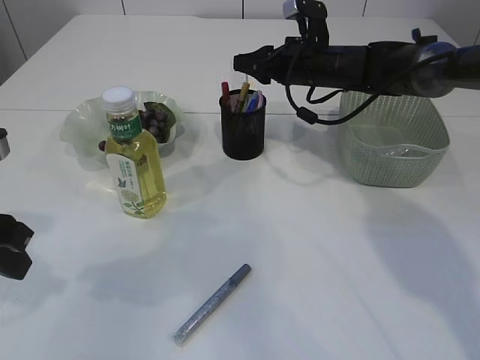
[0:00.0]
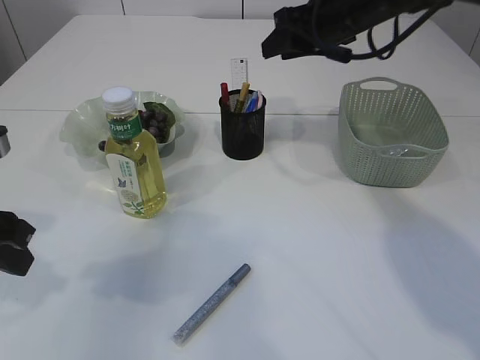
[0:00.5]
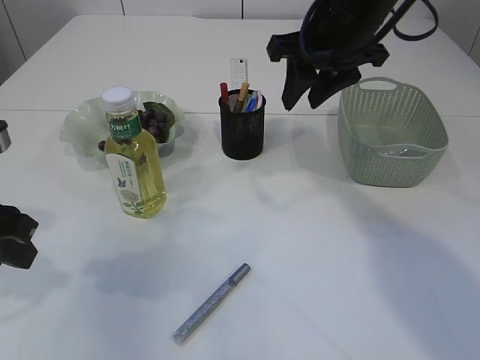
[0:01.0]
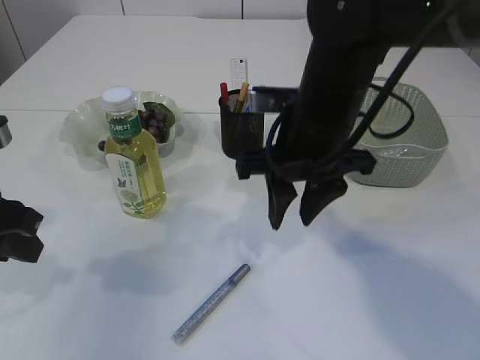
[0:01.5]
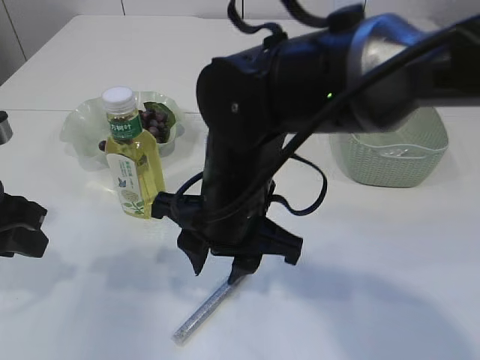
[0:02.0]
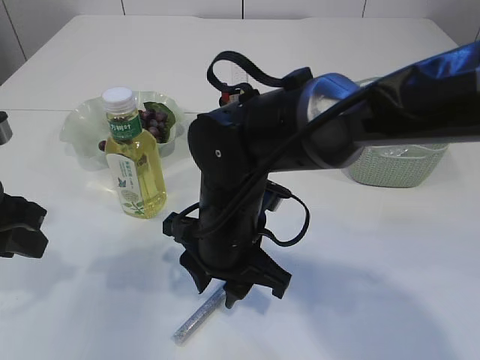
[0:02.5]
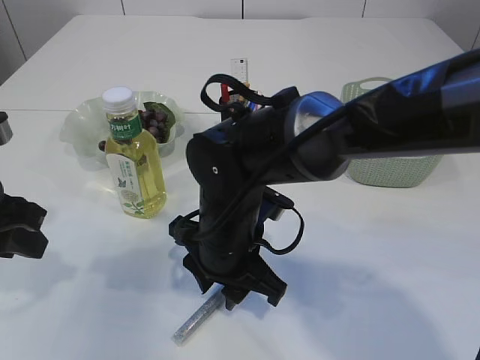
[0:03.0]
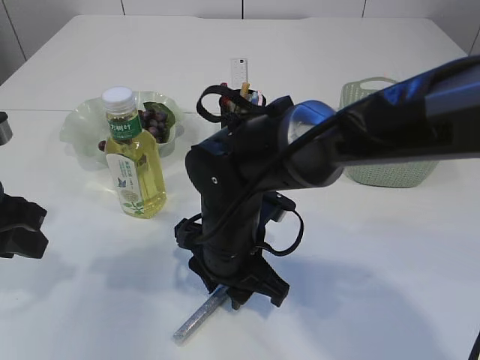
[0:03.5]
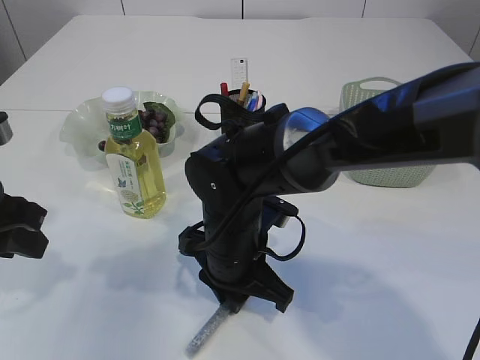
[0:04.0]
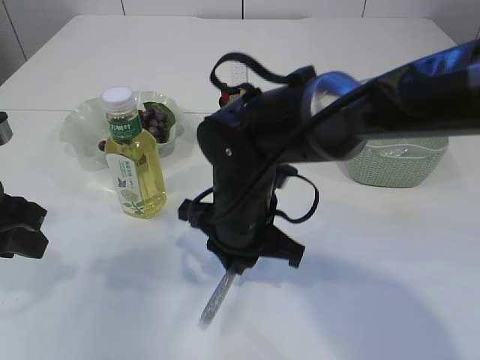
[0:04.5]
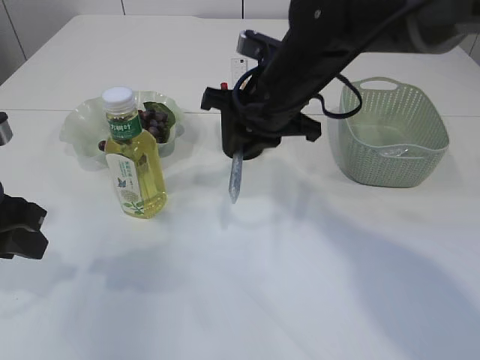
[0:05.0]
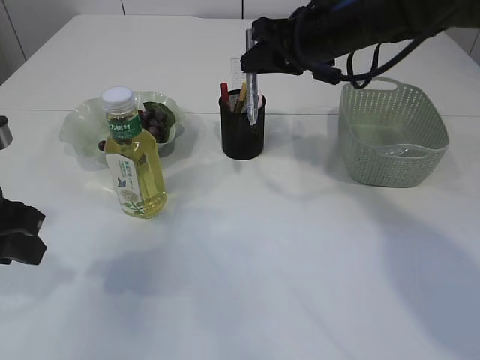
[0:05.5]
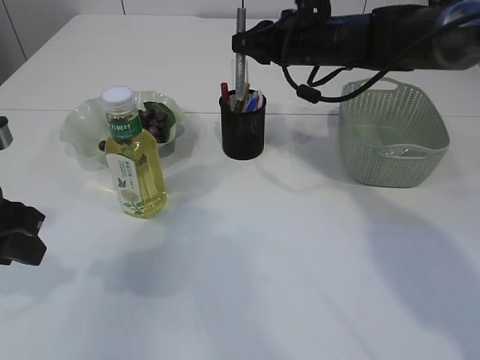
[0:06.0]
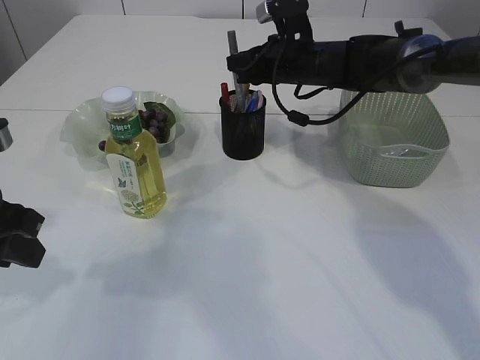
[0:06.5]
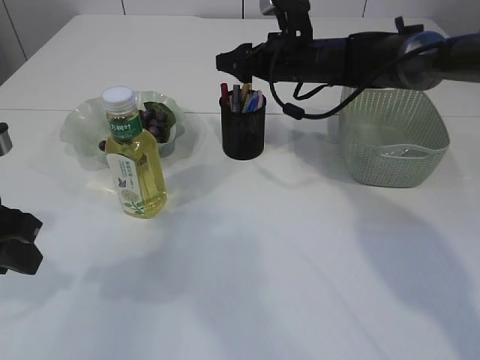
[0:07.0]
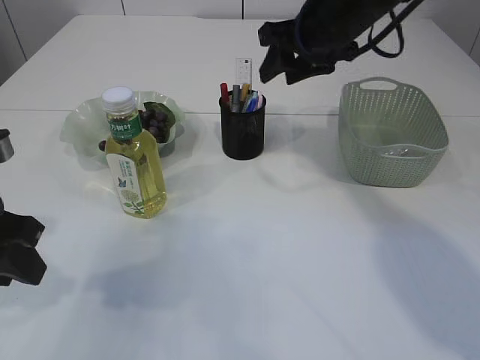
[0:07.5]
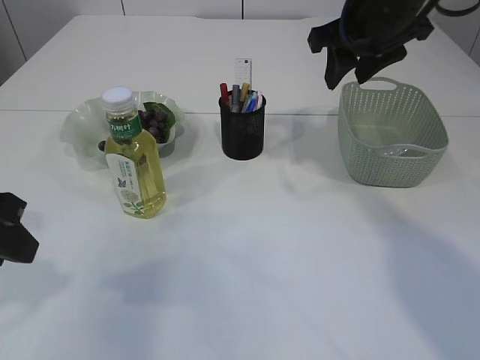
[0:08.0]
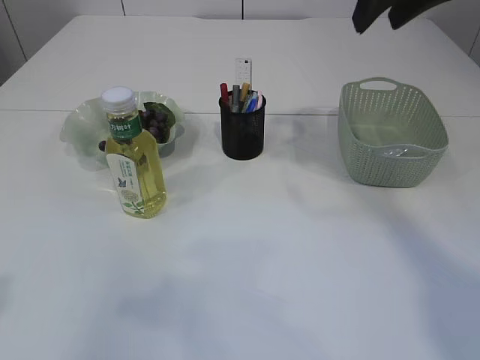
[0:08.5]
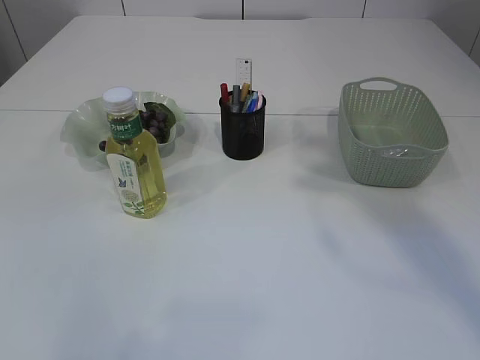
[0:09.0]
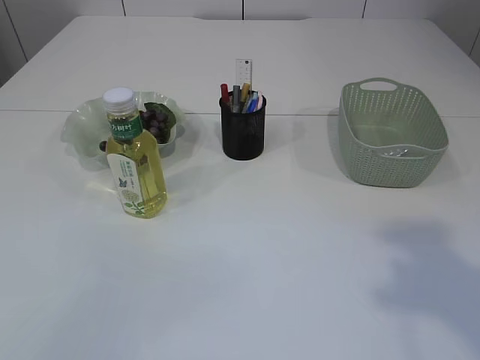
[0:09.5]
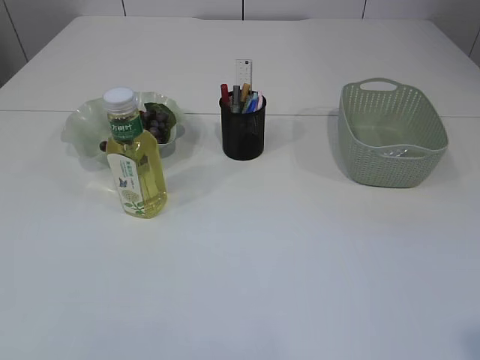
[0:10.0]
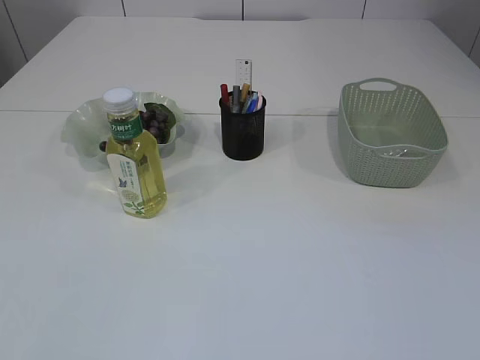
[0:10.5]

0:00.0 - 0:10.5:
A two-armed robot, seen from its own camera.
Step, 0:00.5 - 0:04.5: pick up the silver glue.
Step, 0:05.0 - 0:07.0: place the silver glue into the pen holder.
0:00.0 - 0:02.0: The right gripper heads backward and to the left, covering about 30 cm.
0:02.0 - 0:04.0: The right gripper is displaced downward by about 10 cm, and closes.
0:04.0 - 0:06.5: The right gripper moves forward and to the right, about 25 cm.
0:06.5 - 0:08.5: The right gripper heads upward and backward, covering some 25 cm, and opens its fingers; the left gripper shifts approximately 15 cm upward and backward.
0:08.5 - 0:10.5: The right gripper is displaced backward by some 35 cm.

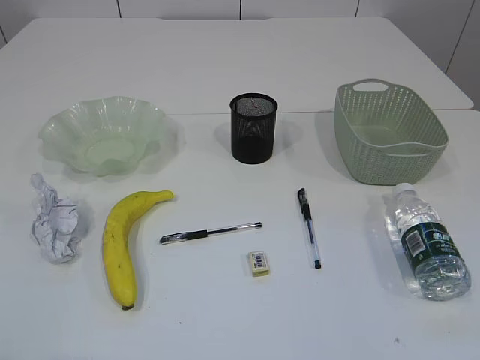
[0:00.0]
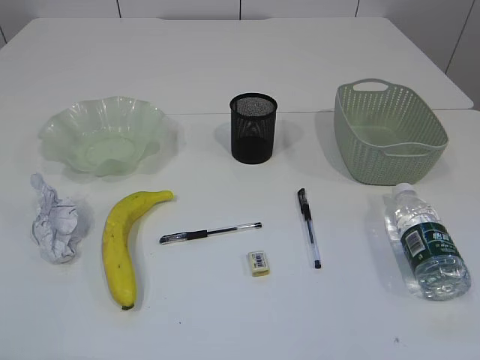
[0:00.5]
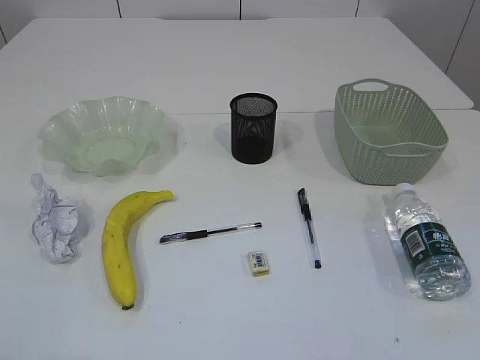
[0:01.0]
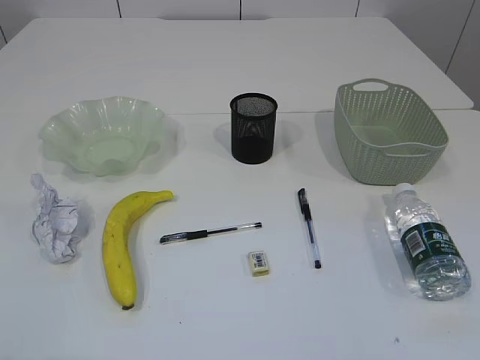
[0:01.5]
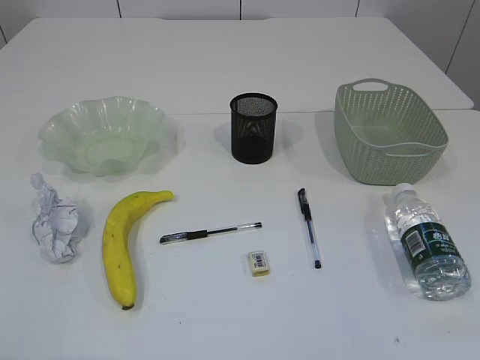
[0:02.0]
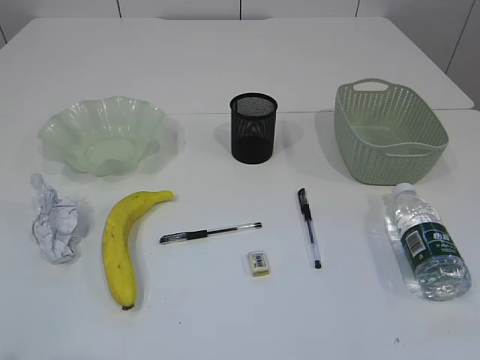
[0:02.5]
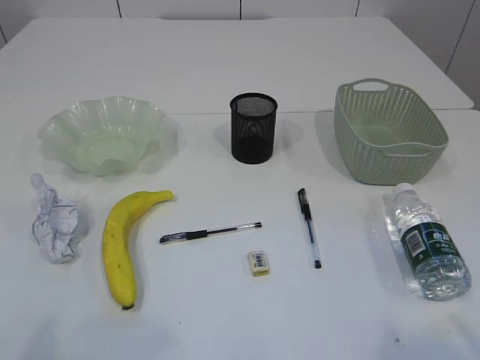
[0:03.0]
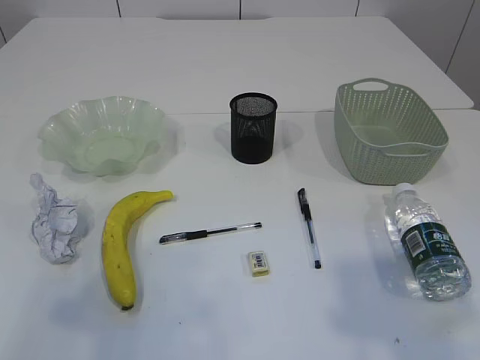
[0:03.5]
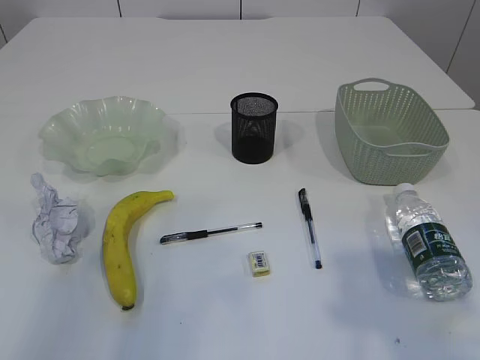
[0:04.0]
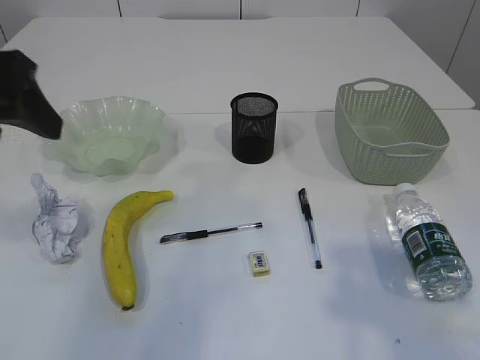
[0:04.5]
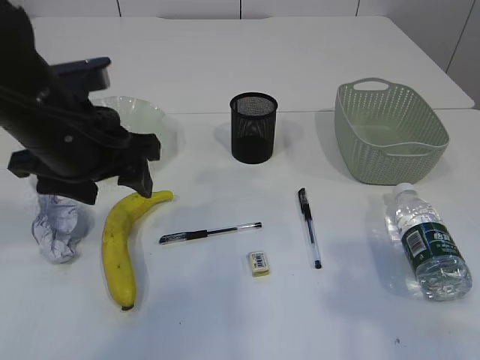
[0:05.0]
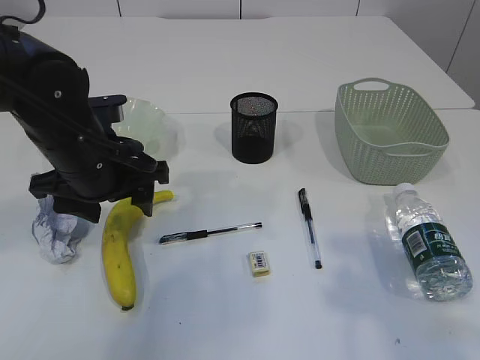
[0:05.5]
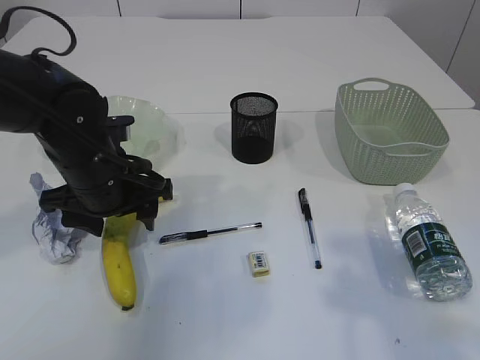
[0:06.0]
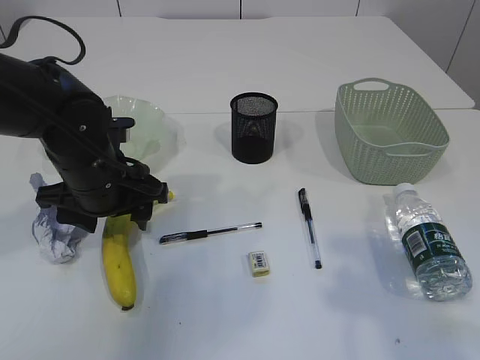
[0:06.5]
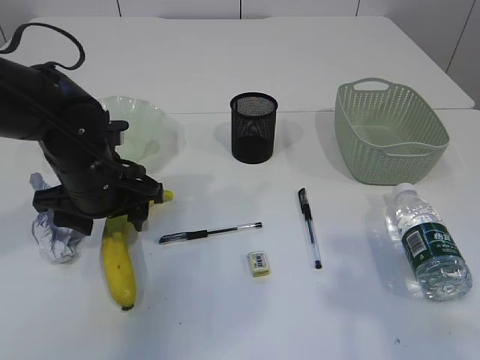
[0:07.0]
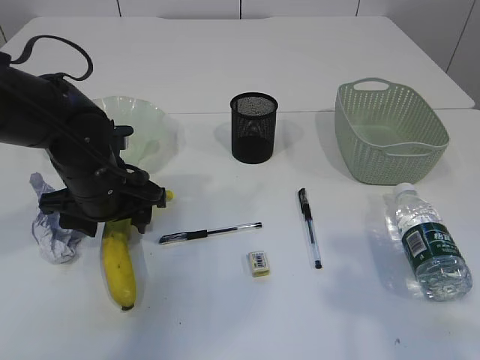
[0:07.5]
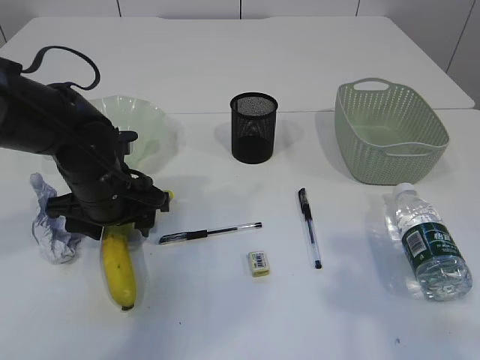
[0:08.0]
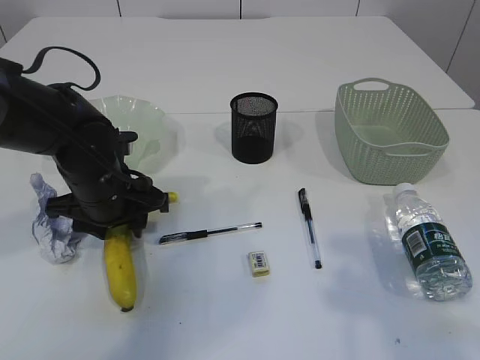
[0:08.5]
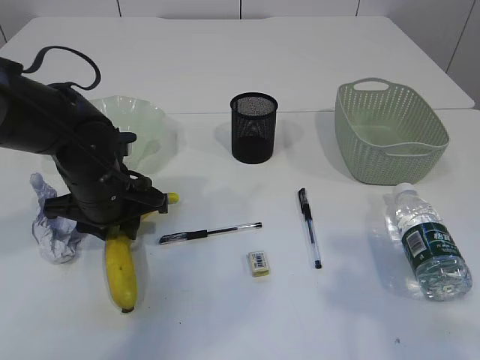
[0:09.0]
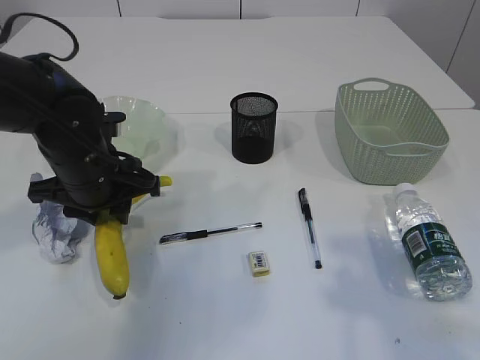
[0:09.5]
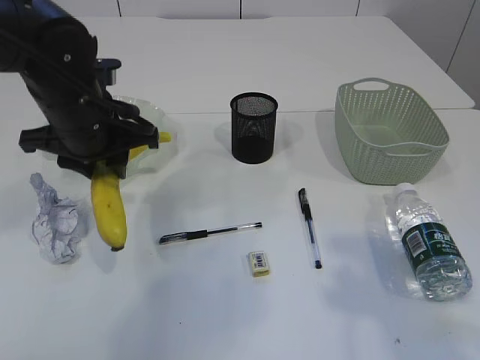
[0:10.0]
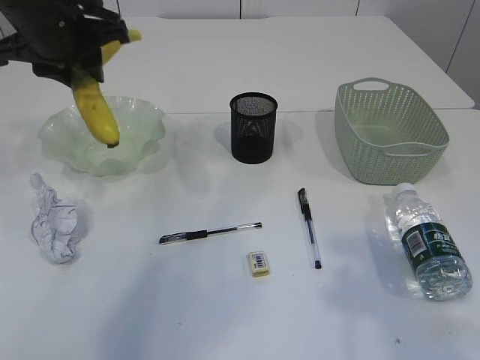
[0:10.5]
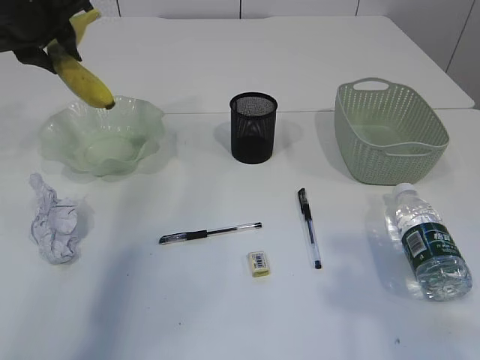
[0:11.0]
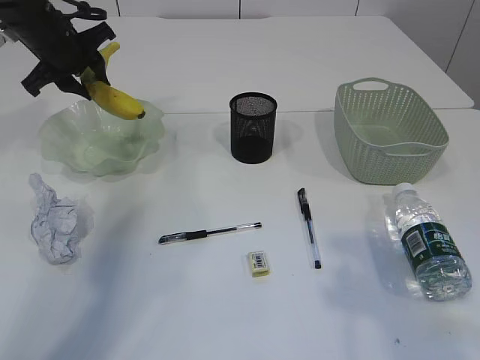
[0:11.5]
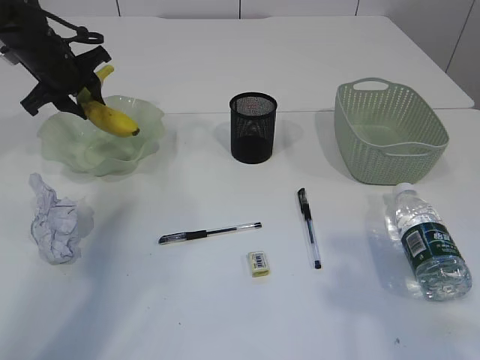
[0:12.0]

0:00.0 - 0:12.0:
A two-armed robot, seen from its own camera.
0:02.0 - 0:04.0: The two grippers go approximately 15 cm forward and upward.
0:04.0 - 0:06.0: The left gripper heads downward, forward and to the right, covering some 30 cm.
0:06.0 - 0:08.0: The grippers stay close to where they were, moving slightly.
0:08.0 - 0:10.0: The left gripper travels upward by roughly 10 cm, and closes.
0:10.0 - 0:12.0: The left gripper travels forward and to the left by approximately 20 cm.

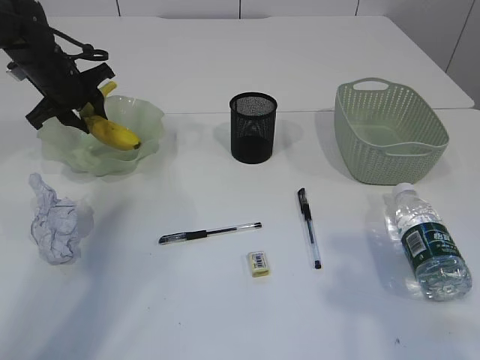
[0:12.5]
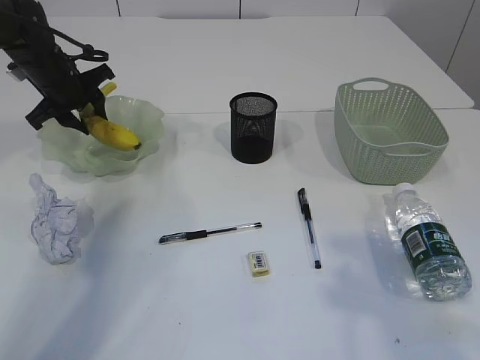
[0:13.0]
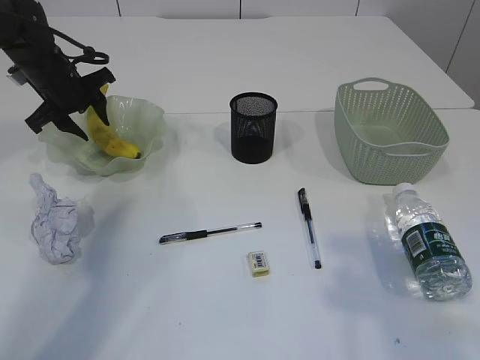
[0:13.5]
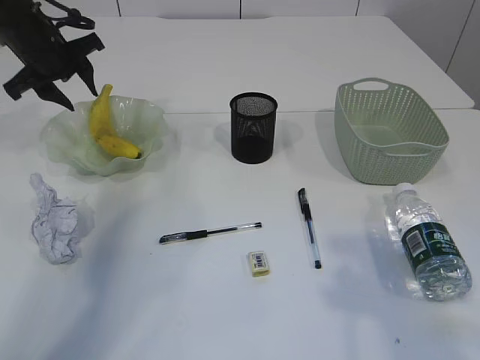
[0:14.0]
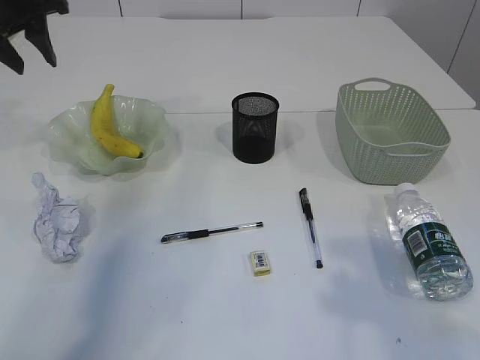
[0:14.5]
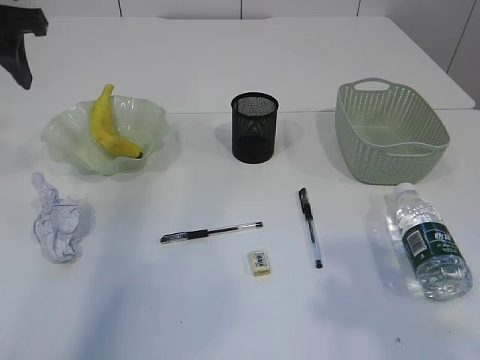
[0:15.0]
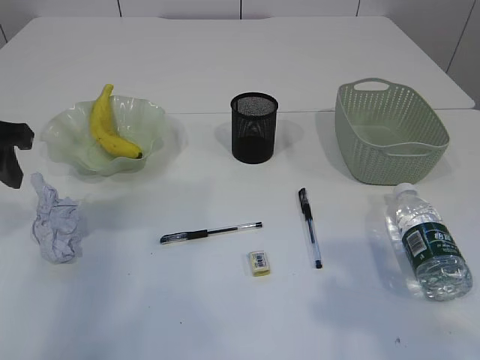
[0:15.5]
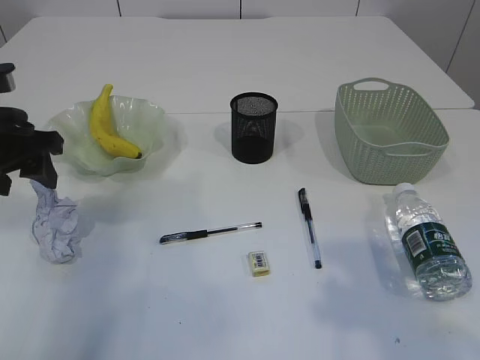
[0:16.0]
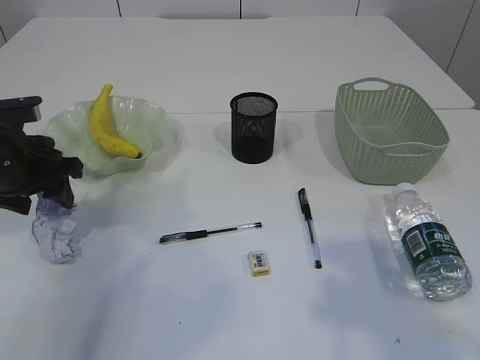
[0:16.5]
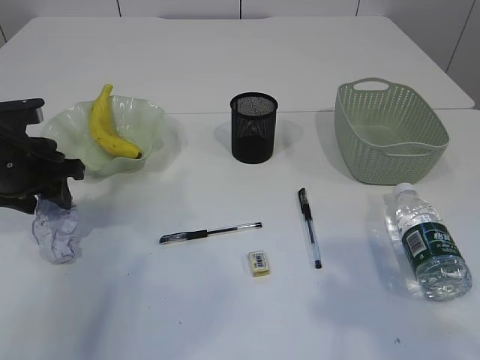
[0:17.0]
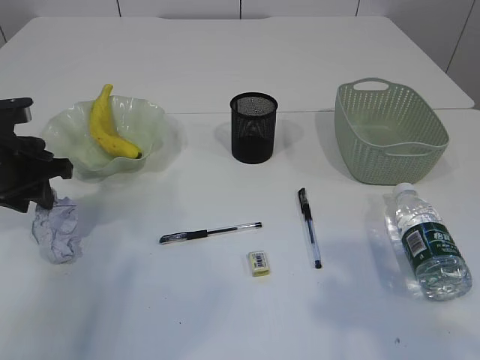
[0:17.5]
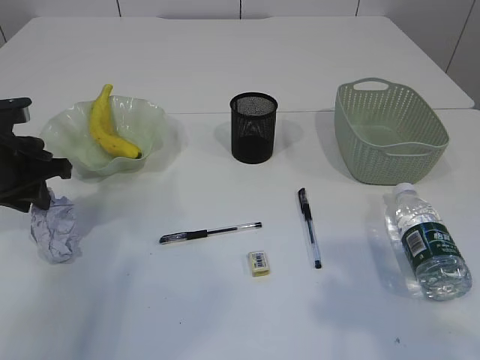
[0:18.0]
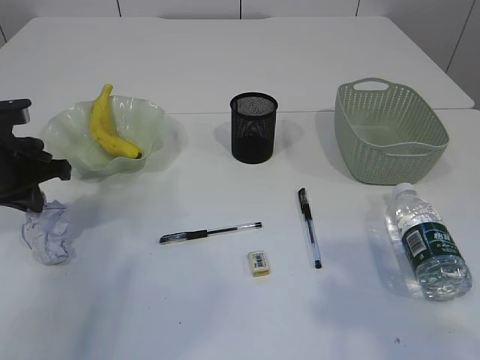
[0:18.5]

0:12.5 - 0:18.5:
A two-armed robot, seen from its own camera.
0:12.5 - 0:14.5: The left gripper heads upward and backward, covering some 15 cm.
0:14.5 - 0:16.5: The left gripper goes some 20 cm downward and backward.
0:16.5 - 0:18.5: The left gripper closes up.
